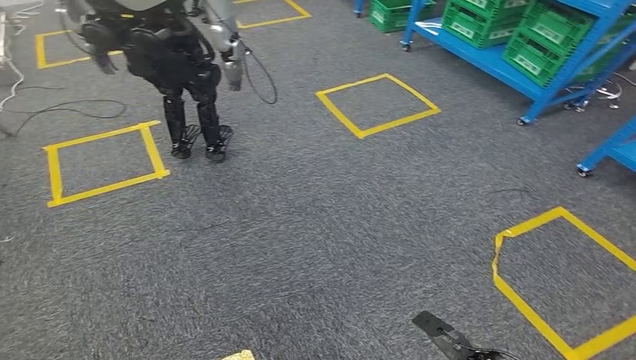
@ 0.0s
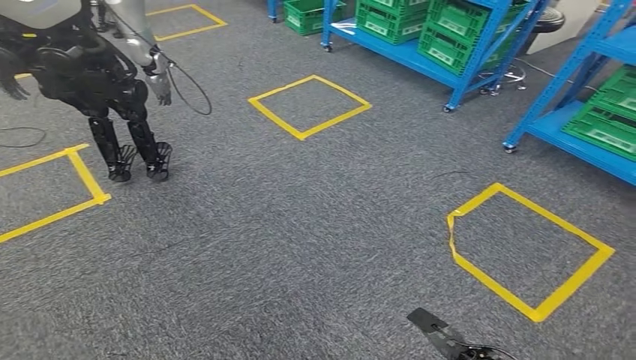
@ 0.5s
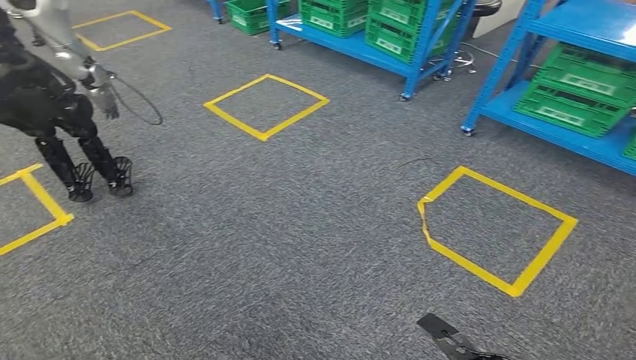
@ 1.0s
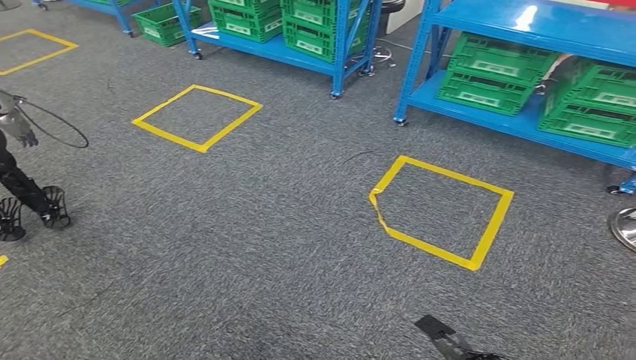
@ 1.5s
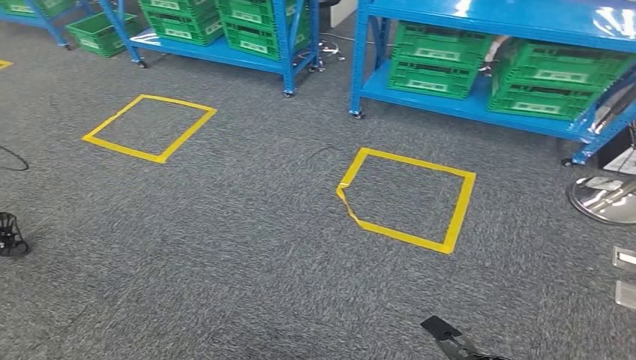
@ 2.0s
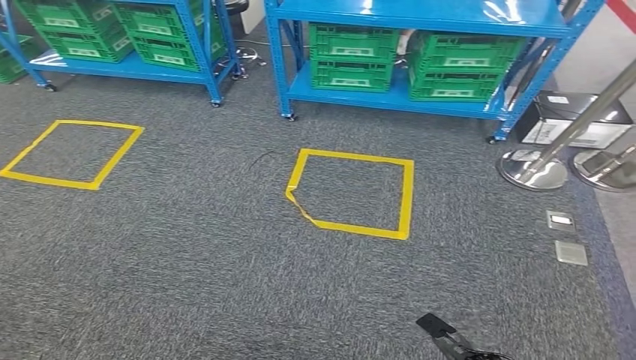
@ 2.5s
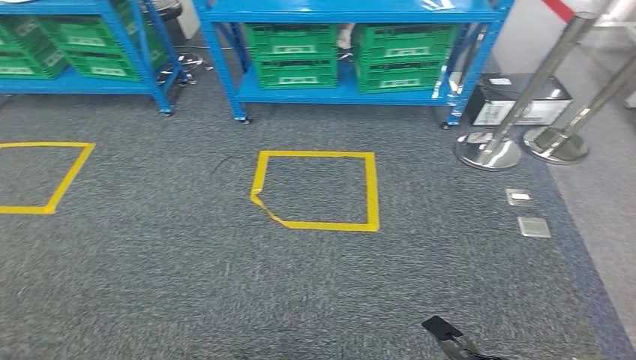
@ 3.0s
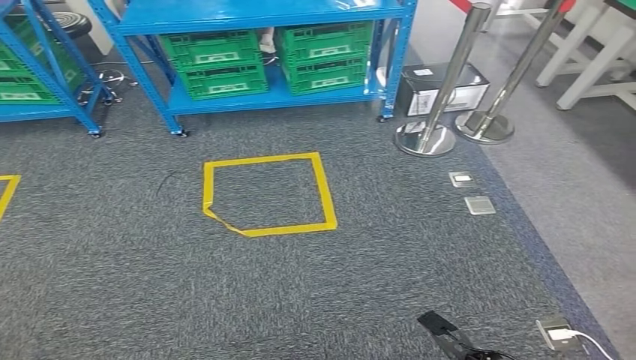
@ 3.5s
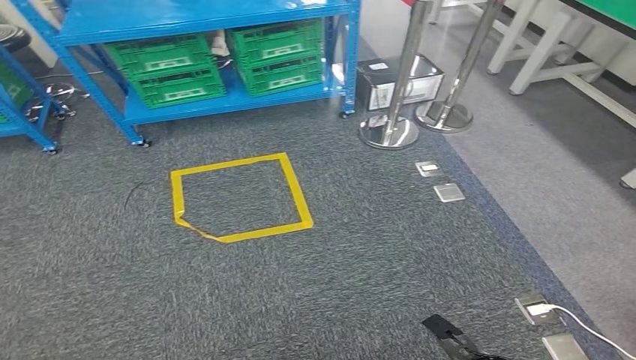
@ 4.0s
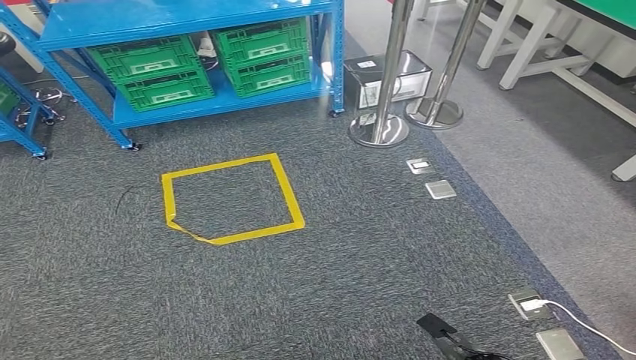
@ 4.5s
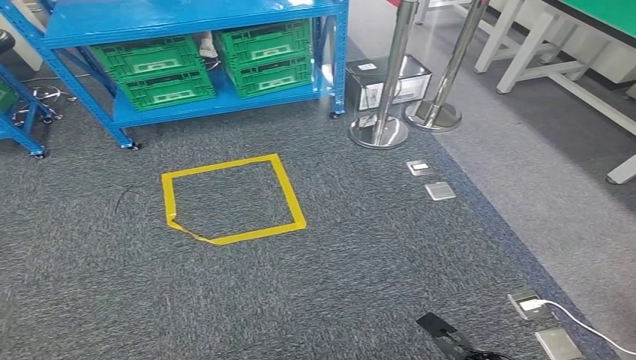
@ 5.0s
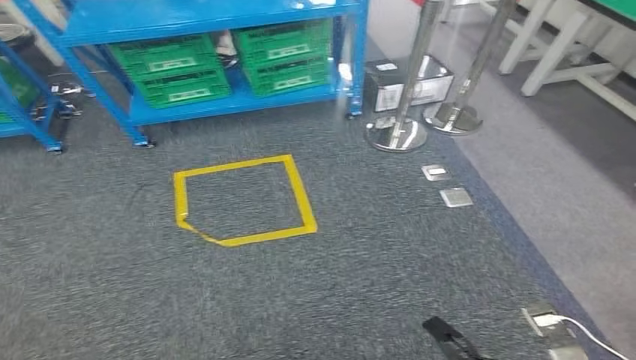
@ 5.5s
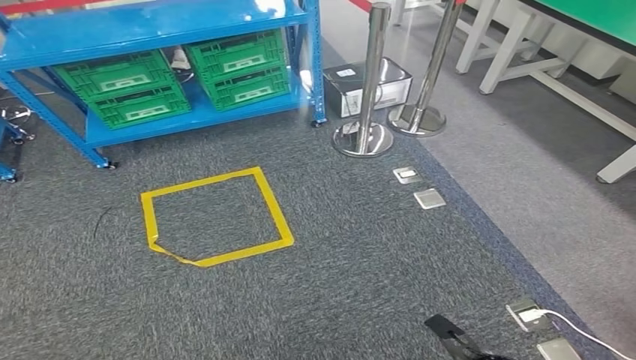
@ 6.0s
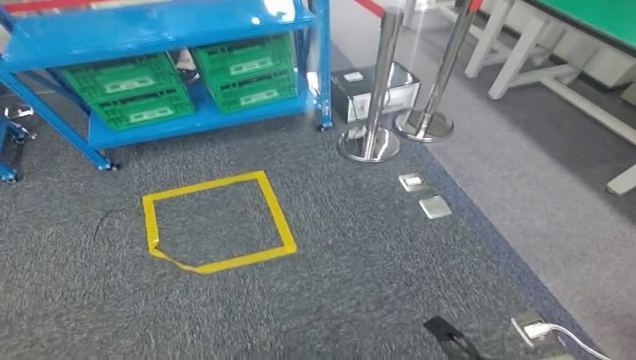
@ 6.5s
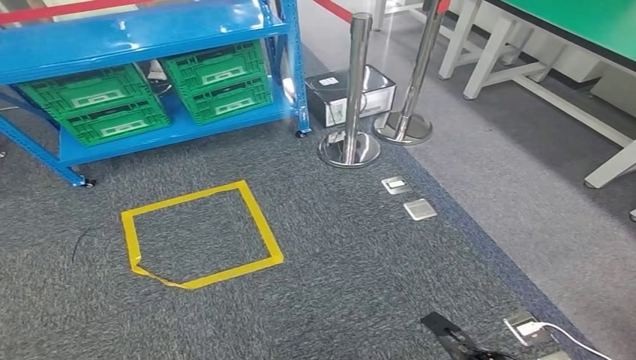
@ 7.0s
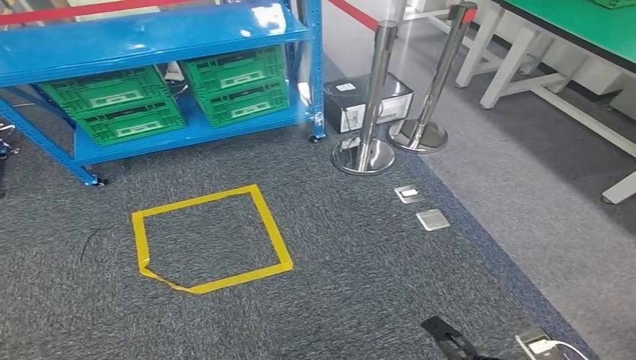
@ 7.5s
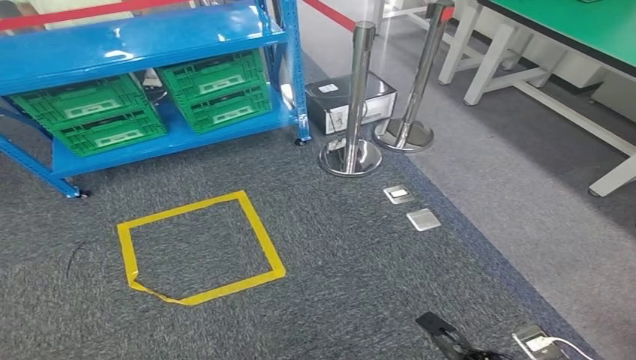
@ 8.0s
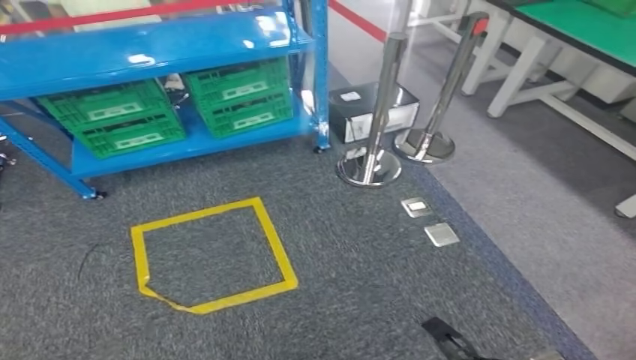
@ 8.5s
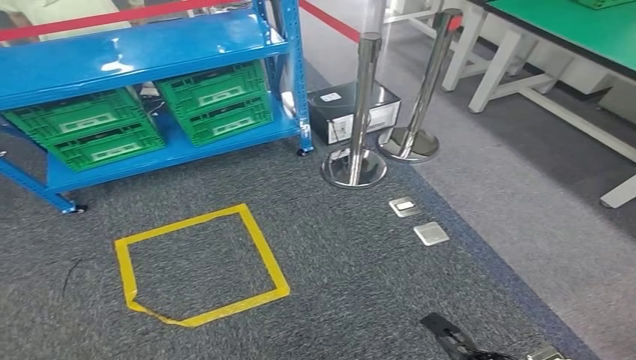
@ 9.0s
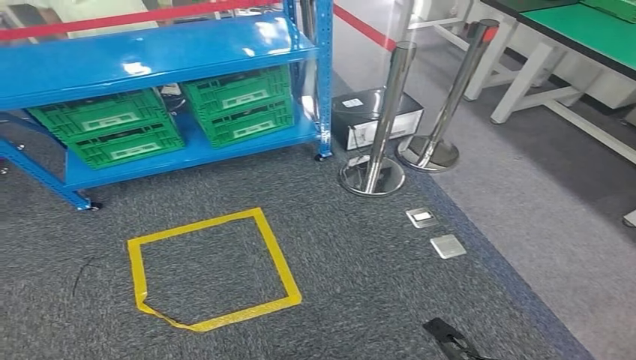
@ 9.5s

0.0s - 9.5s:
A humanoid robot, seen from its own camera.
Step, 0.0s - 9.5s: Move to the initial position of the workbench.
4.0s - 5.5s: Neither hand changes place.
